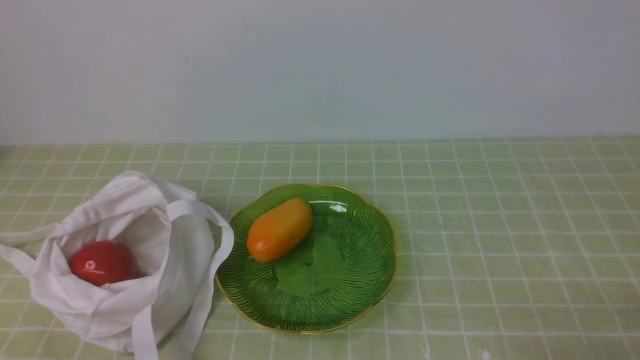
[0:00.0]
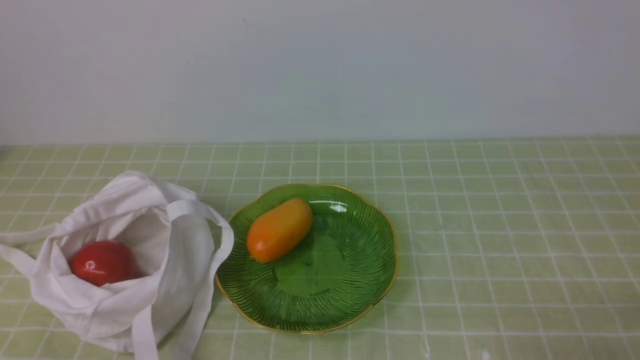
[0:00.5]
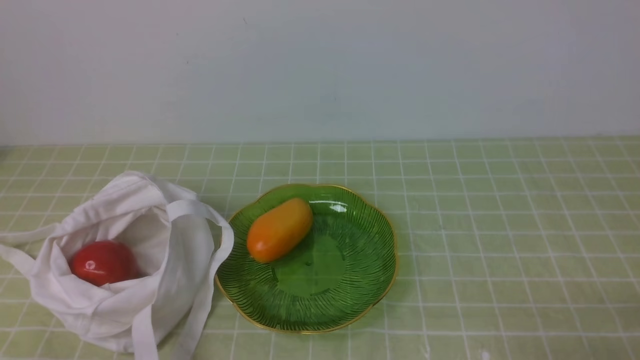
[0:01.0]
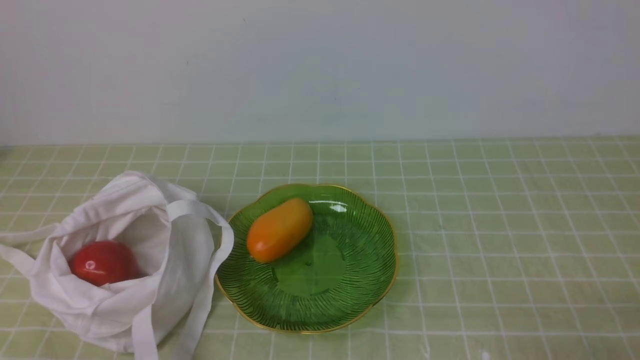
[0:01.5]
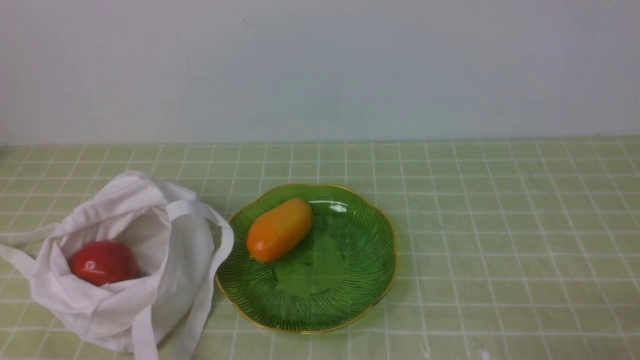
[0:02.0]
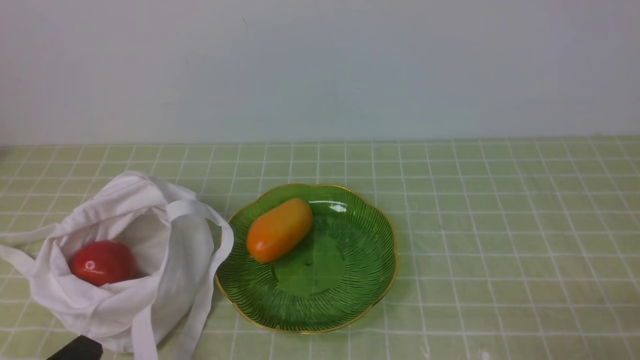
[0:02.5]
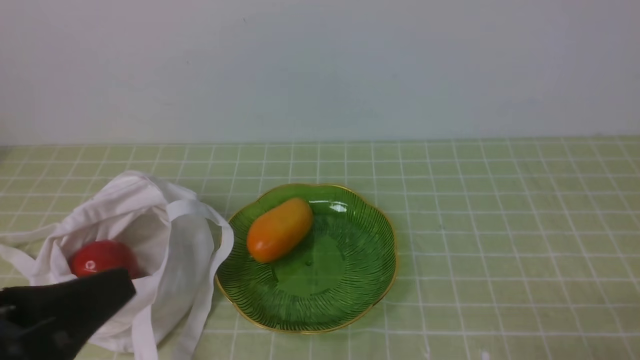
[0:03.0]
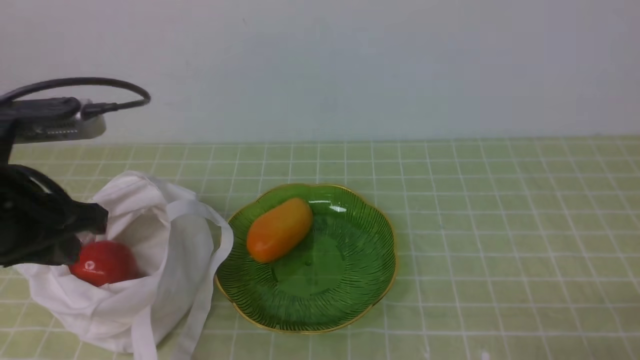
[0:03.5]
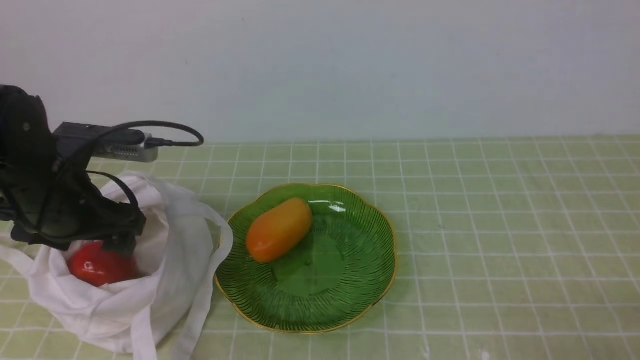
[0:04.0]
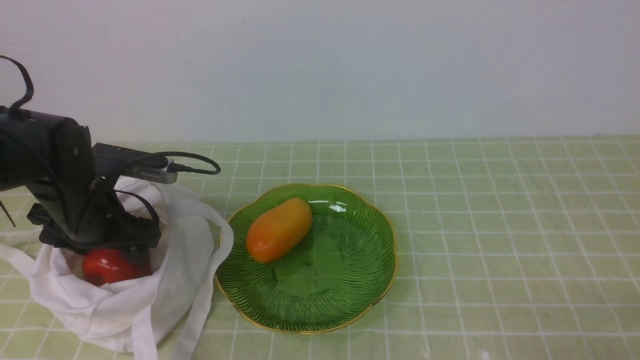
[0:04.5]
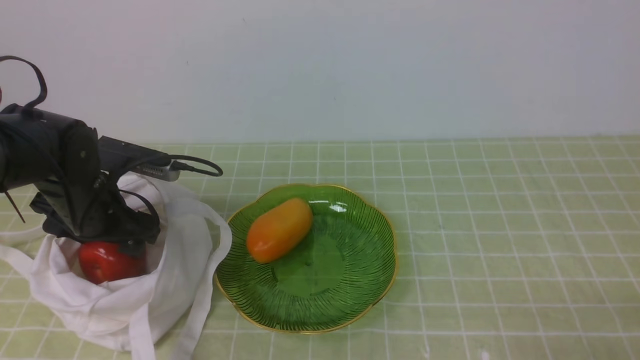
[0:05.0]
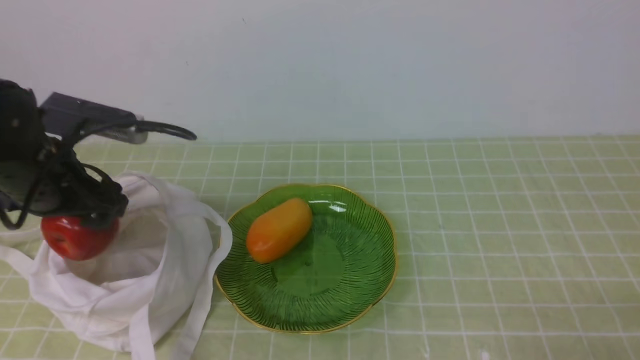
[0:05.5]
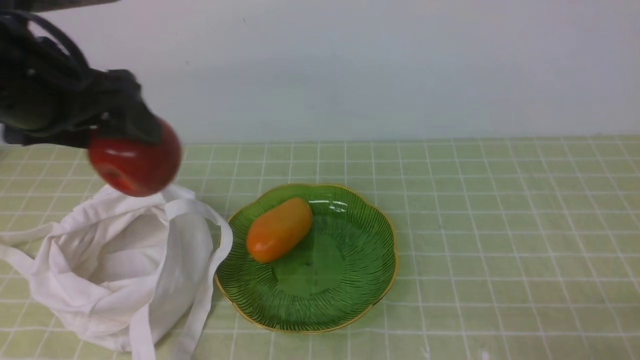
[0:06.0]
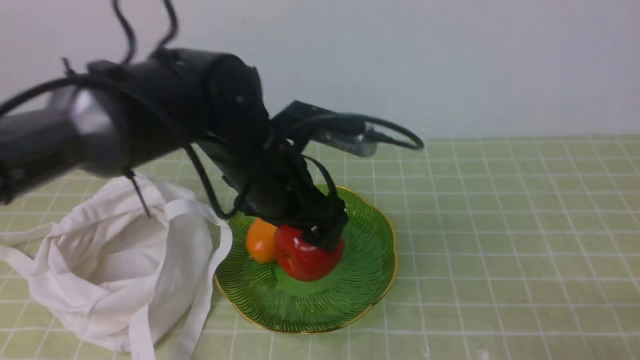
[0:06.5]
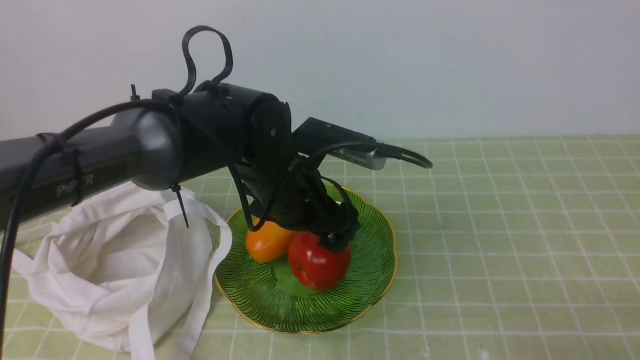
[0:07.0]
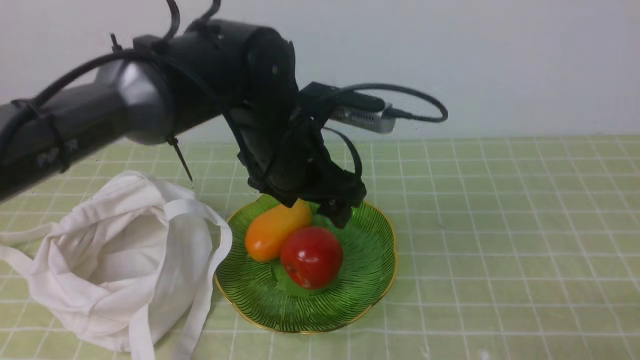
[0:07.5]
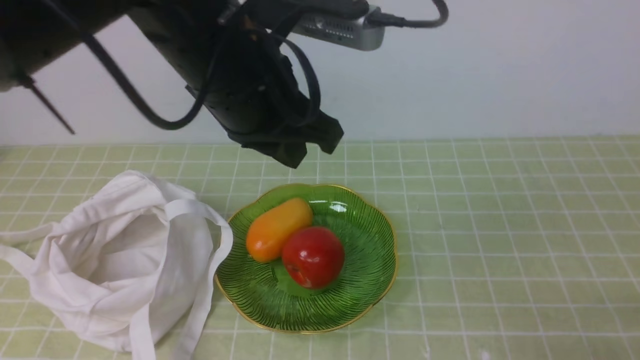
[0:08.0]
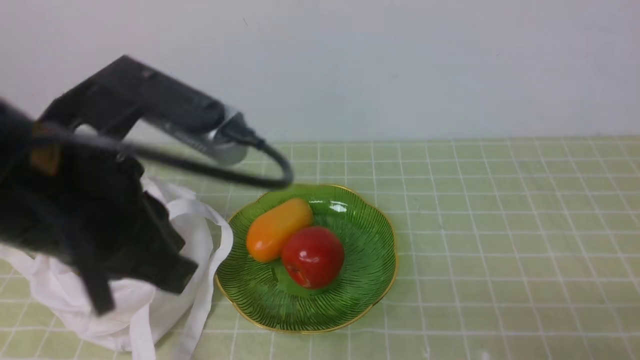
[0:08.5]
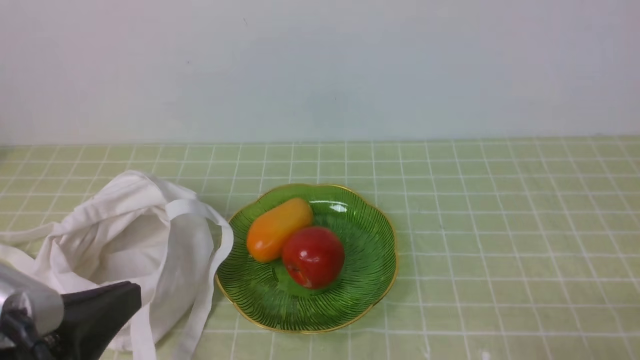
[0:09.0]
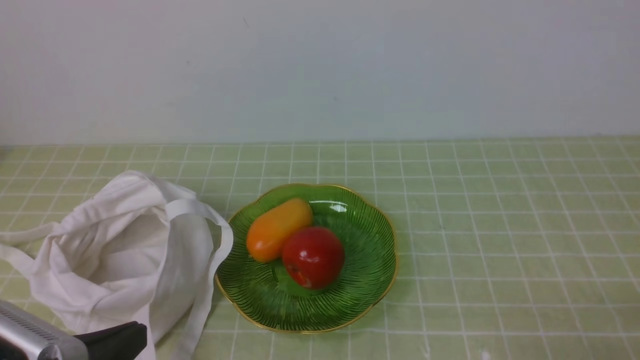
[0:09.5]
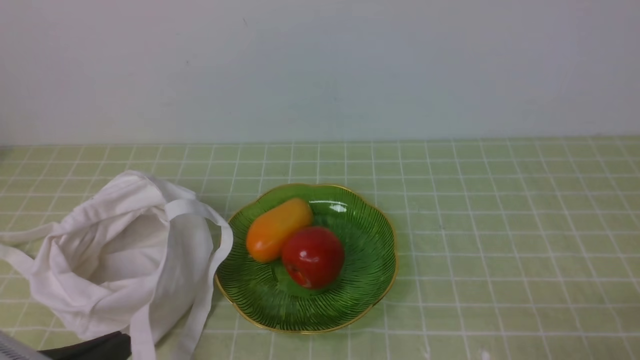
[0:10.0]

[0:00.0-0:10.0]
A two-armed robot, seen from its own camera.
Step, 0:00.0 to 0:05.0: use the left arm to grab an apple from the bag.
Step, 0:05.5 to 0:07.0: use the left arm to put the apple into the empty plate on the right.
0:02.0 to 0:04.0: The left gripper shifts some 25 cm forward, and opens.
0:04.0 to 0:06.0: The left gripper moves upward, approximately 10 cm.
0:06.0 to 0:08.0: The left gripper shifts about 15 cm to the right, and closes up.
0:08.0 to 0:10.0: The left gripper heads backward, to the left and downward, covering some 30 cm.

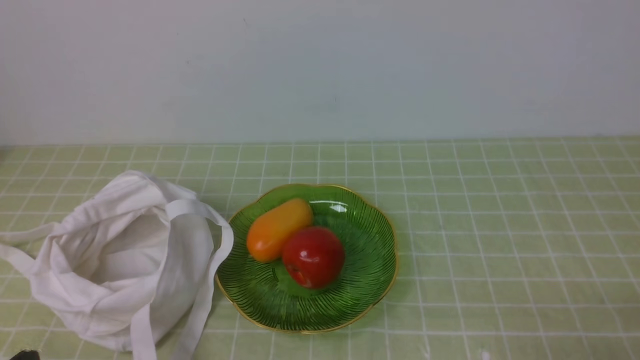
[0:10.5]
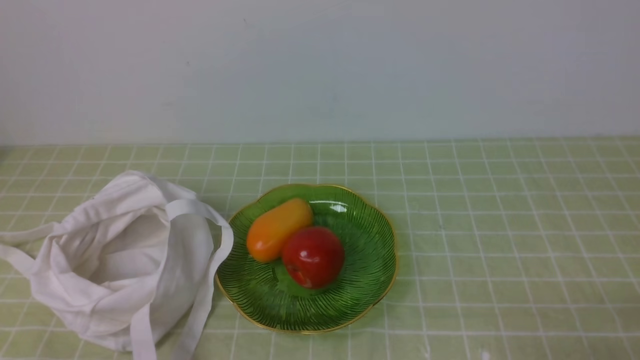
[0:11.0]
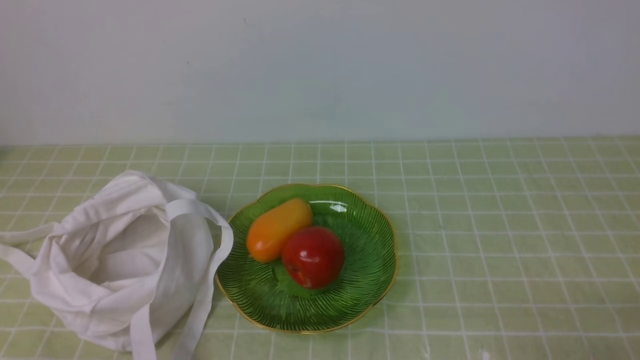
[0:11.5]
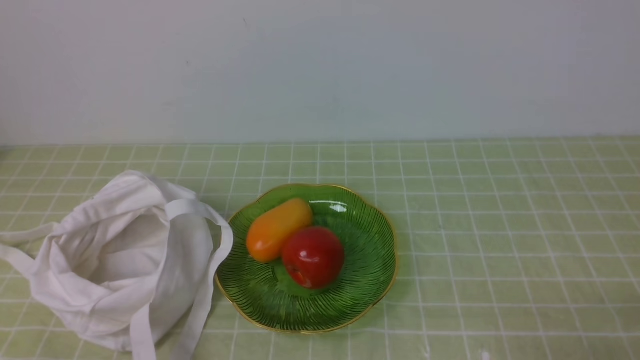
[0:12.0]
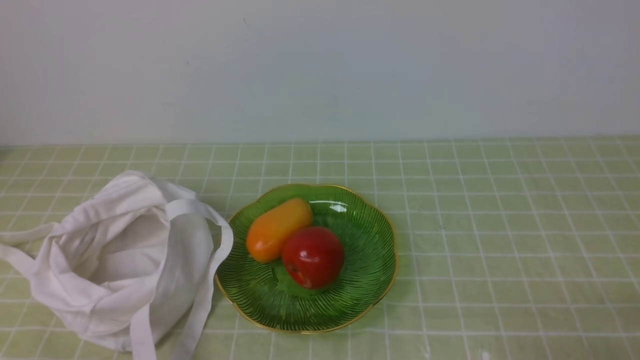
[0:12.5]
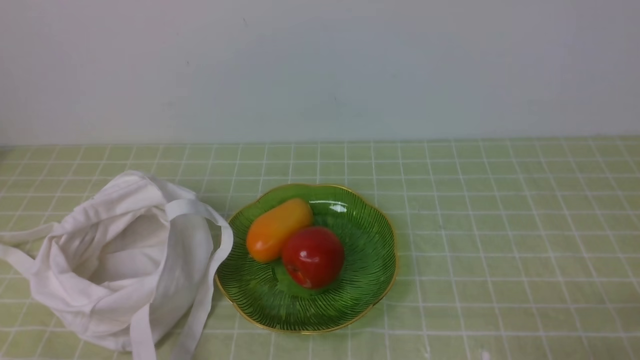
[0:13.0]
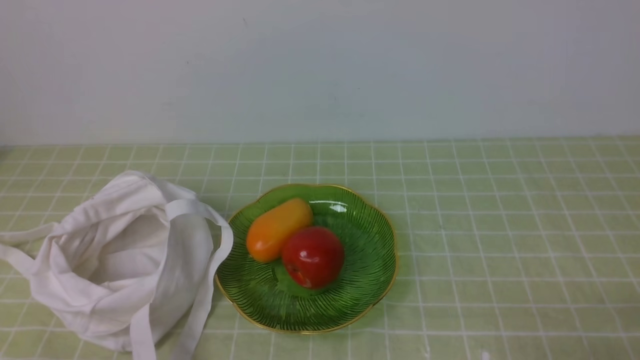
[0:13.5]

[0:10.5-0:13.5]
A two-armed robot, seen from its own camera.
0:12.0 to 0:13.5: Neither gripper changes place.
